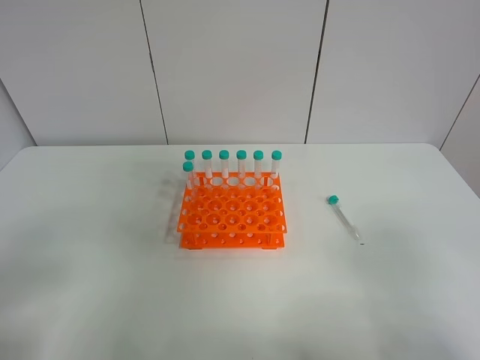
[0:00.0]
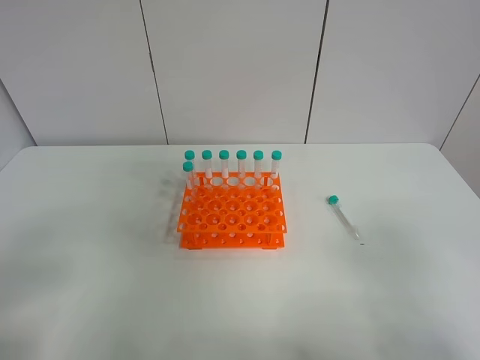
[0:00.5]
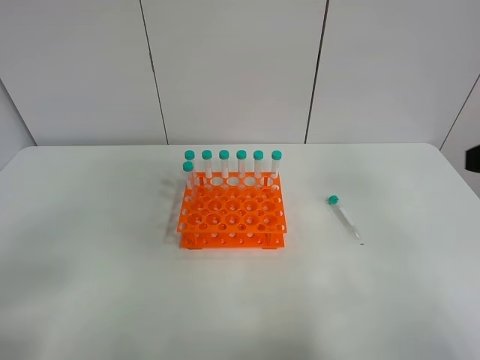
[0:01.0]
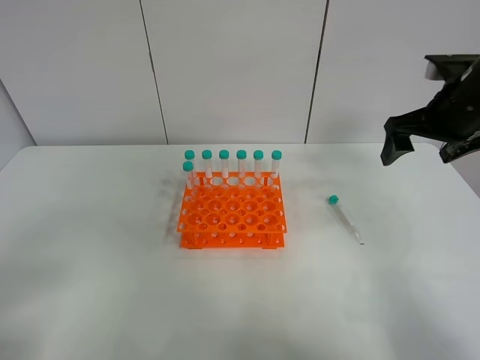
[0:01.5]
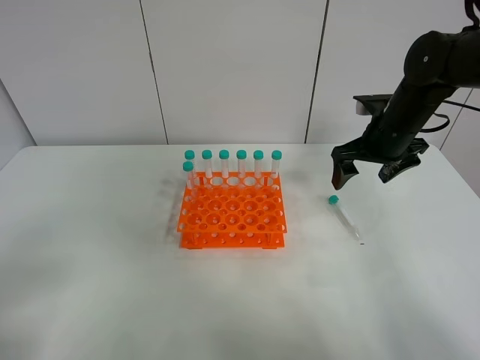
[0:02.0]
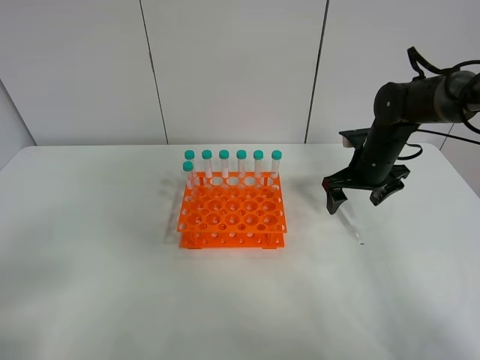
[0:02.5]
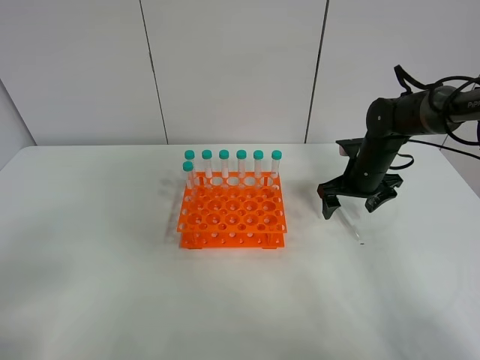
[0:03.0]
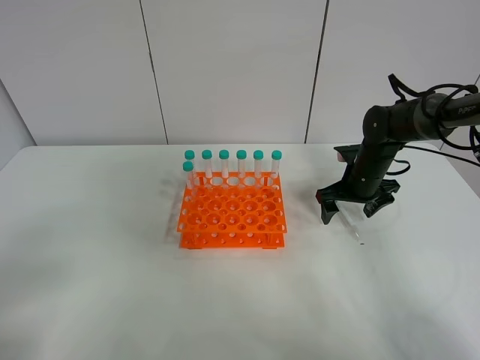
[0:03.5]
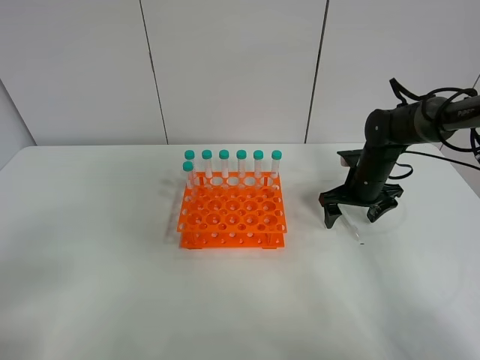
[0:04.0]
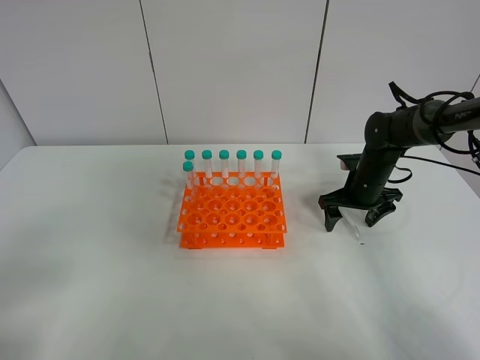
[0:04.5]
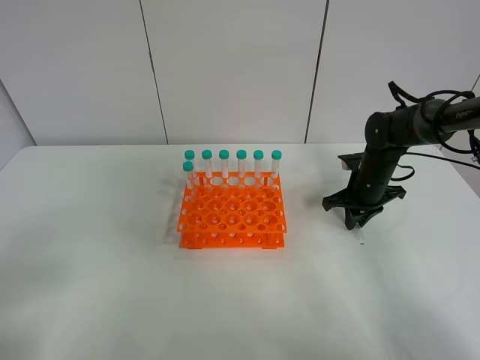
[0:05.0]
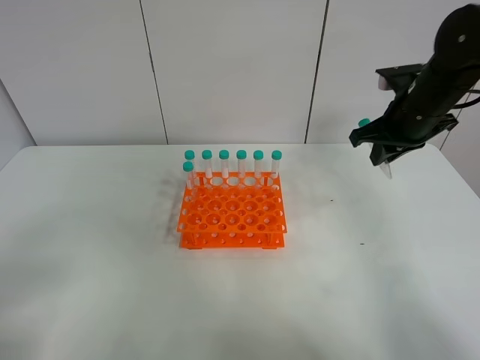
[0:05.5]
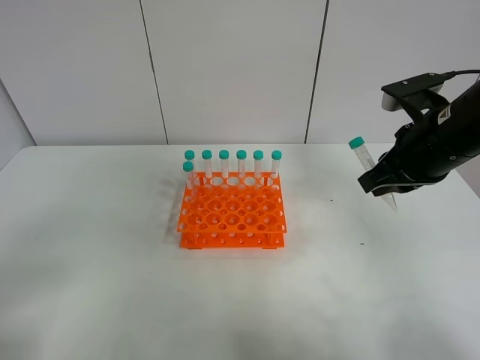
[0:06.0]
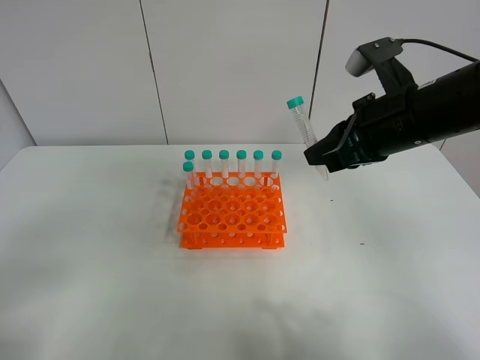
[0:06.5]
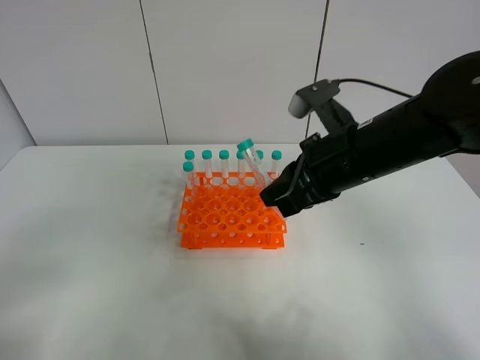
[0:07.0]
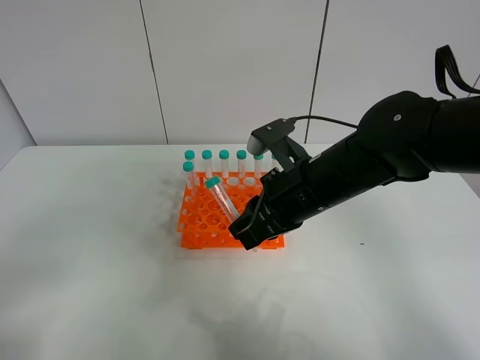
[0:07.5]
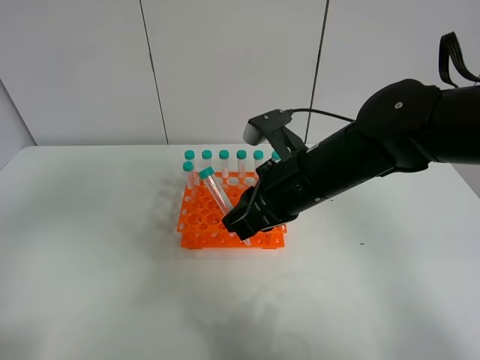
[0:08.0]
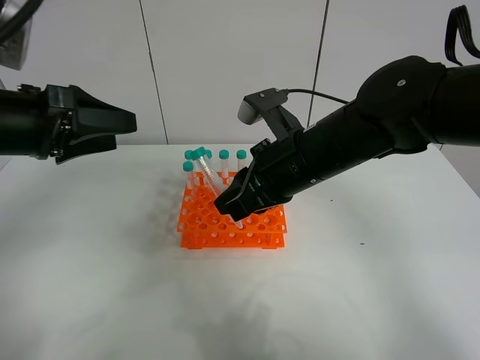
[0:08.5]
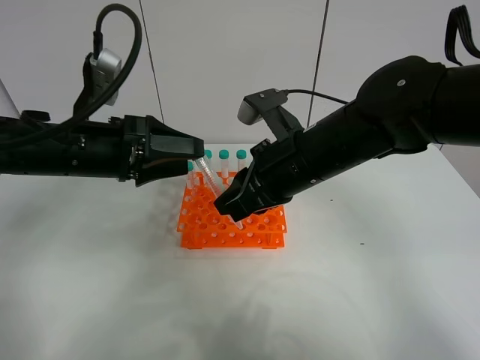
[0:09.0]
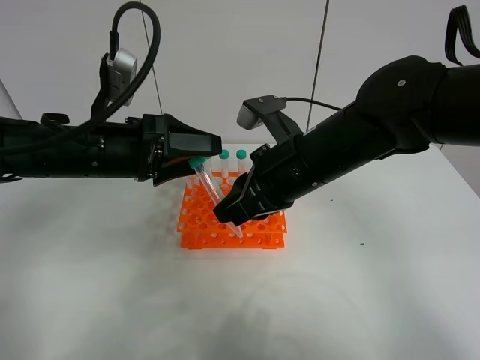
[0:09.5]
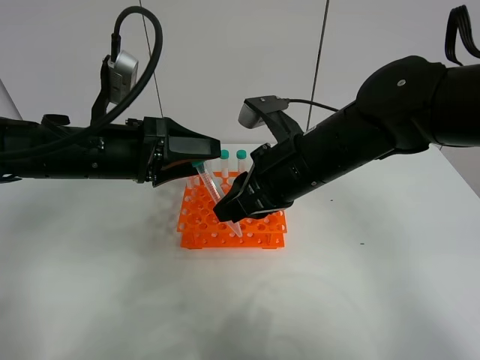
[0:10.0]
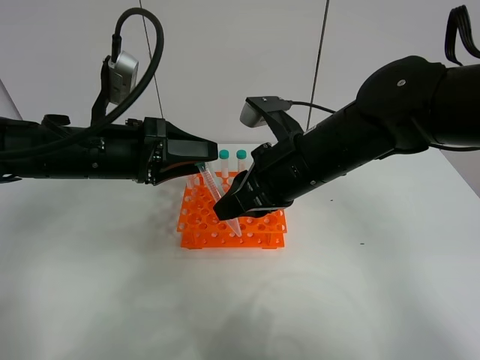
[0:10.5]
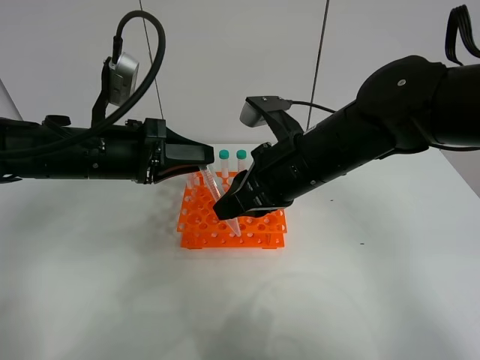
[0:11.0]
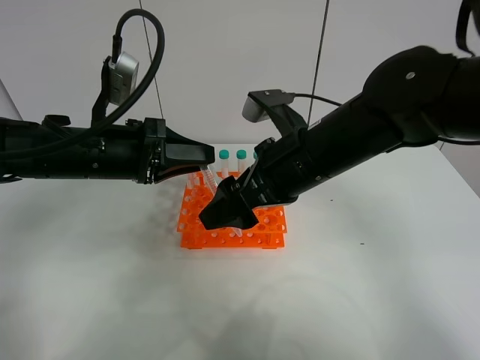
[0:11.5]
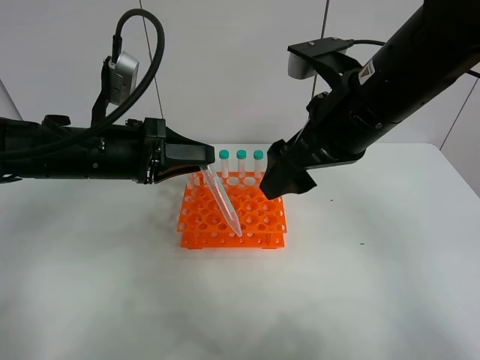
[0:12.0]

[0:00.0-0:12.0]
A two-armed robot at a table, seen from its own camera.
Task of the whole recording: Put the test tube on the table back onto the test tube rack.
Step, 0:00.0 to 0:04.5: Pick up the test tube with the right gripper.
Step, 0:05.0 to 0:11.0: Move the test tube from the right gripper to the left gripper.
0:00.0 to 0:02.0: The right gripper shifts roughly 40 cm forward.
0:02.0 to 0:04.0: The right gripper heads downward, covering about 10 cm.
0:04.0 to 0:06.0: The right gripper travels upward and backward by roughly 20 cm, and closes.
0:06.0 to 0:08.0: The right gripper is displaced to the left by some 15 cm. Meanwhile the left gripper shifts some 15 cm forward and upward.
0:08.0 to 0:10.0: The left gripper travels forward, to the right and downward by approximately 25 cm.
0:10.0 to 0:12.0: The left gripper closes its fingers. Meanwhile the right gripper shifts approximately 5 cm upward, and opens.

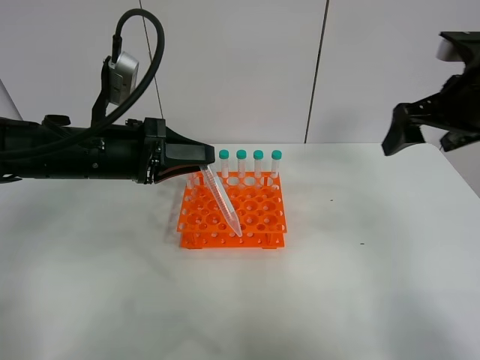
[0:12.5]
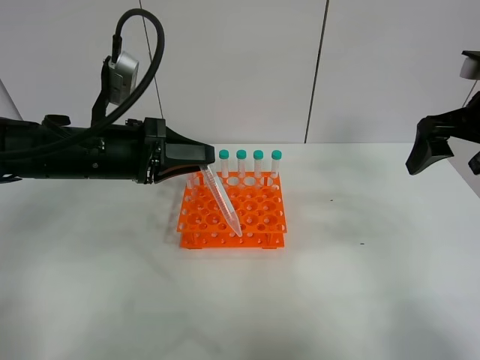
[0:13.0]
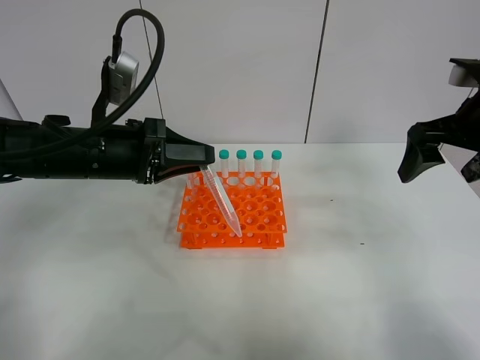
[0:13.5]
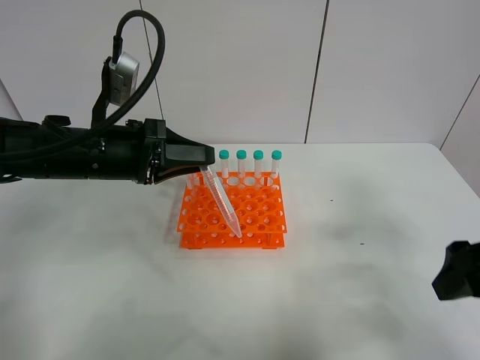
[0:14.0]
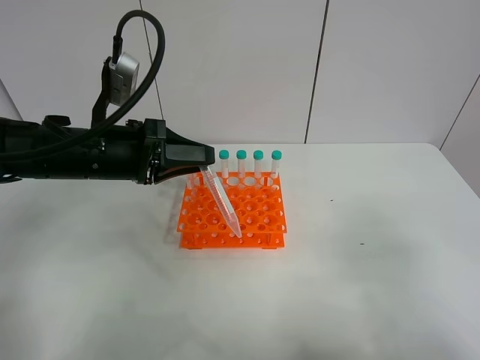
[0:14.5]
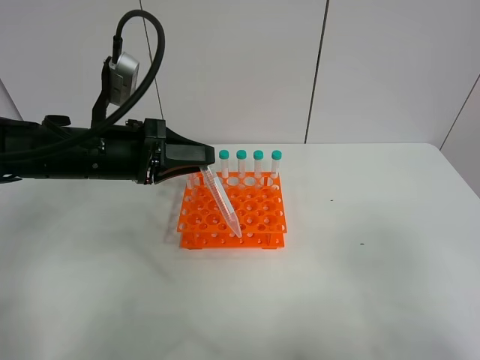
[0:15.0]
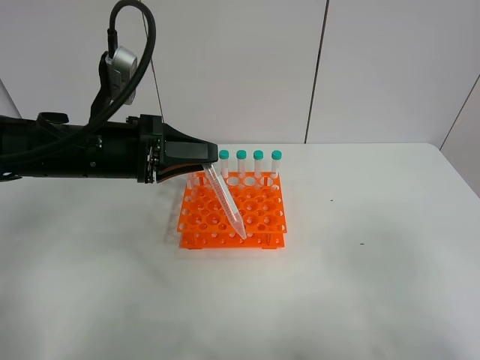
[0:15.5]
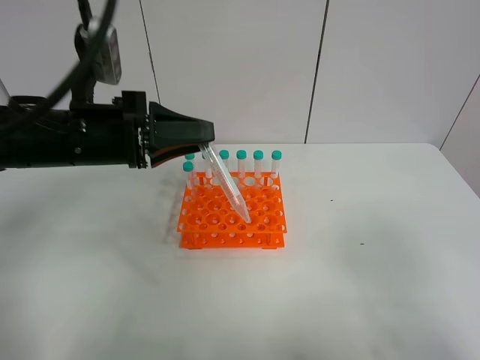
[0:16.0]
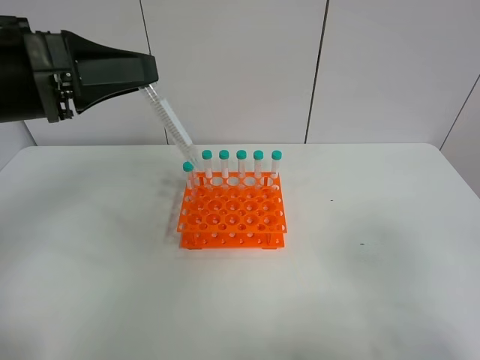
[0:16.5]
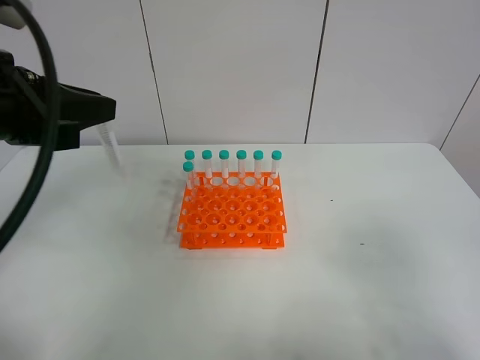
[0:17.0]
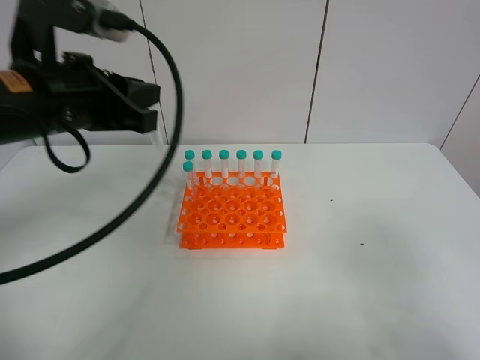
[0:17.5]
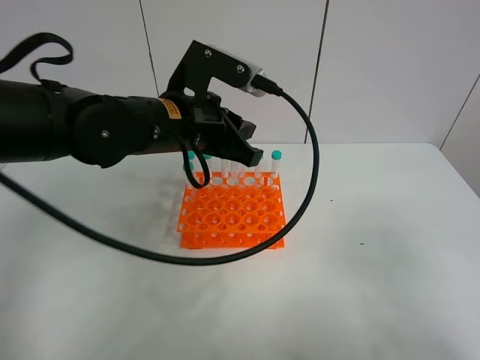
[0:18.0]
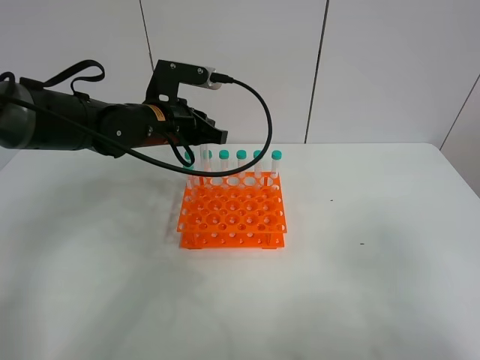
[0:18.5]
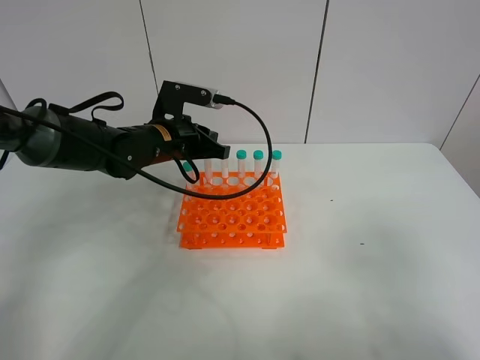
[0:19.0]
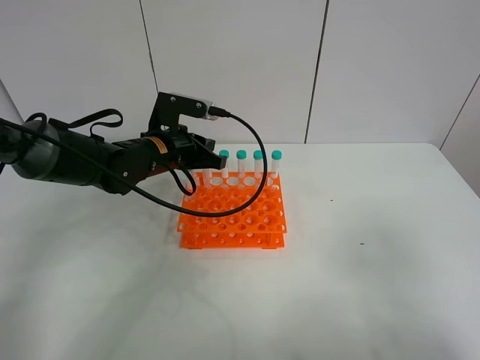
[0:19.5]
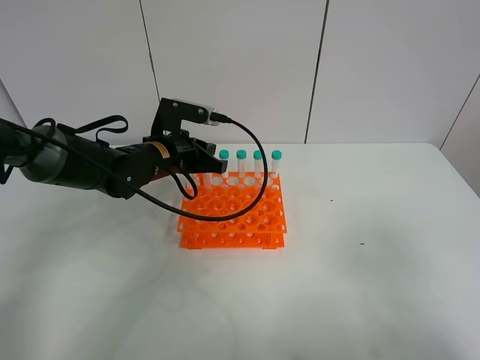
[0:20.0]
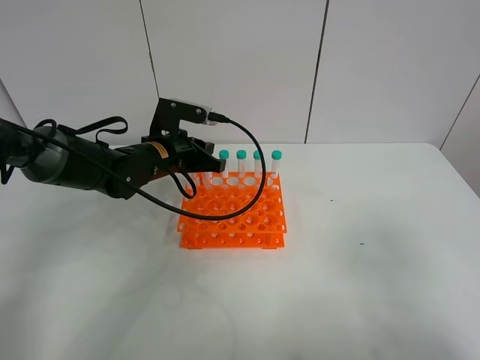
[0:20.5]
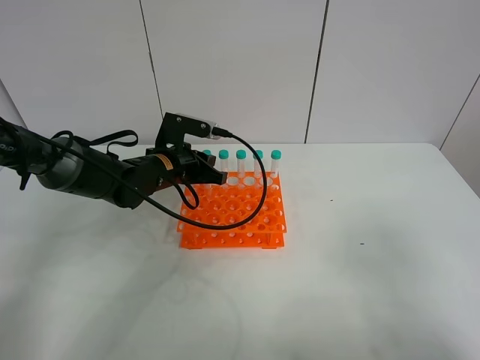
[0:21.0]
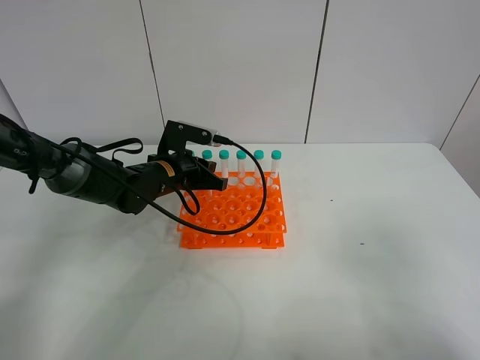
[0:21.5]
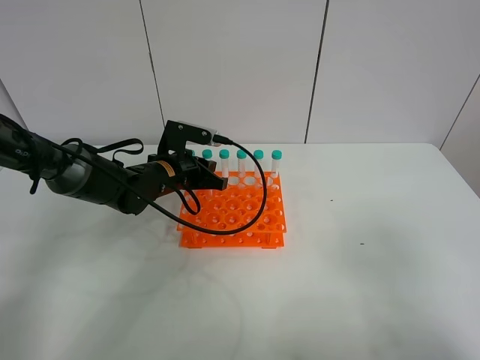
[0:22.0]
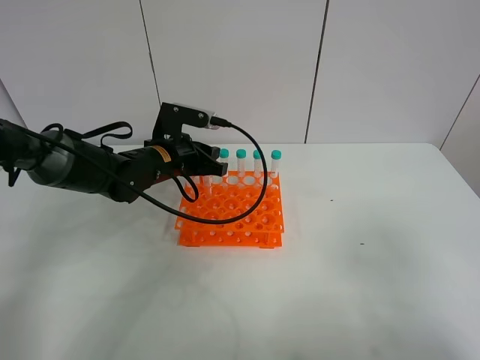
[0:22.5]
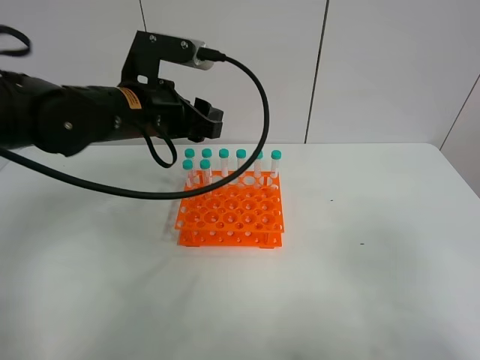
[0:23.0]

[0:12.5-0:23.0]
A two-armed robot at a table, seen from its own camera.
Task of the whole recording: Put the test tube on the table back onto the test tube rack.
Step, 0:12.5 to 0:22.0: Place the test tube on the test tube rack with the left gripper.
0:12.5 to 0:14.5: The right gripper goes some 30 cm backward.
0:14.5 to 0:16.5: The left gripper goes about 15 cm upward and backward.
0:16.5 to 0:19.0: The left gripper shifts roughly 25 cm forward, downward and to the right.
0:19.0 to 0:21.0: The grippers move only a little.
0:21.0 to 0:23.0: The left gripper is displaced upward and backward by approximately 15 cm, and opens up.

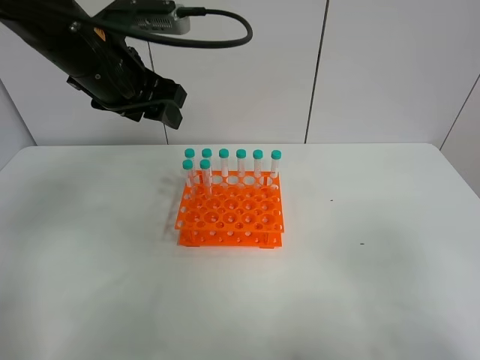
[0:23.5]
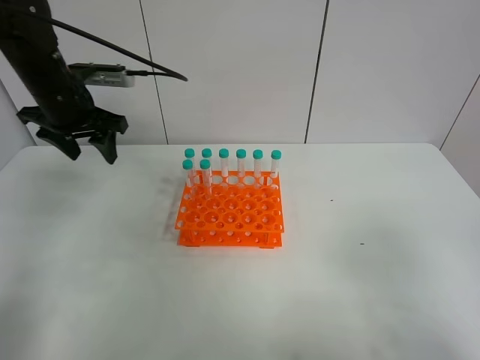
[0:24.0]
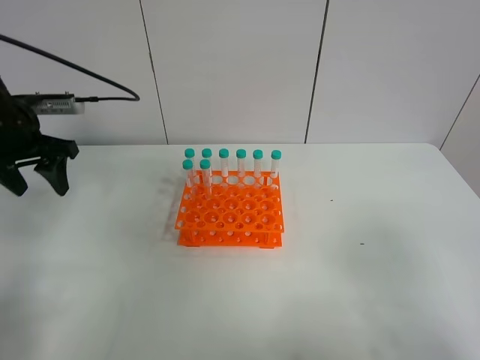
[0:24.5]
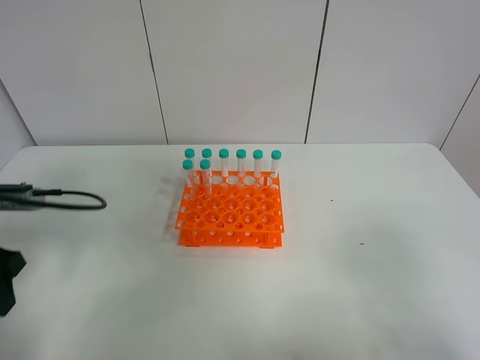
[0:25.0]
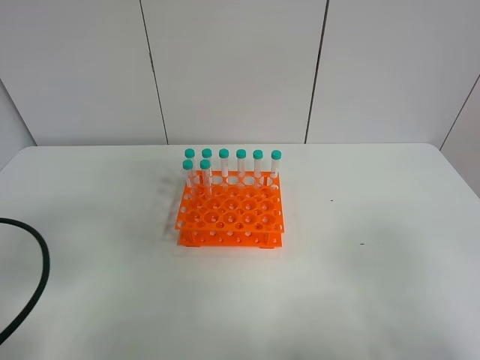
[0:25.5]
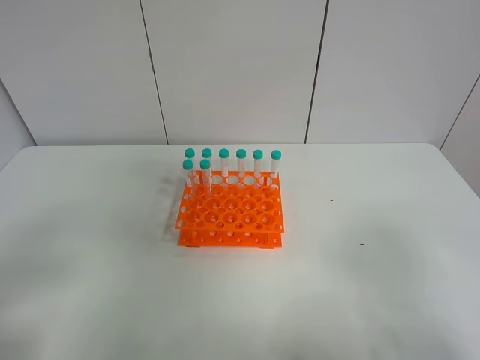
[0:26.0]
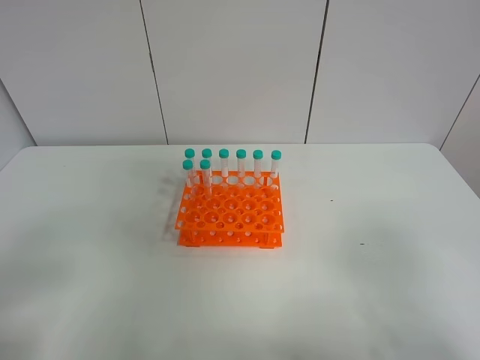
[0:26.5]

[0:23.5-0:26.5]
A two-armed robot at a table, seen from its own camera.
Task of the whole recording: Put the test tube on the table back onto the test tube rack.
0:23.5 to 0:25.0: The left gripper shifts some 25 cm to the left, backward and downward.
0:25.0 to 0:26.5: The left gripper is displaced backward by approximately 15 cm.
